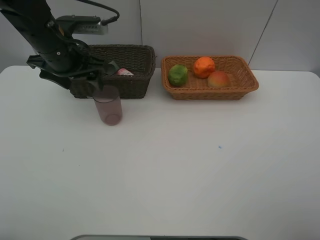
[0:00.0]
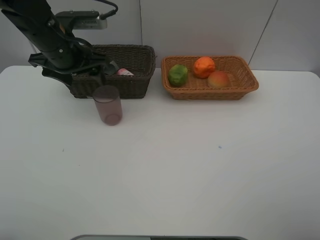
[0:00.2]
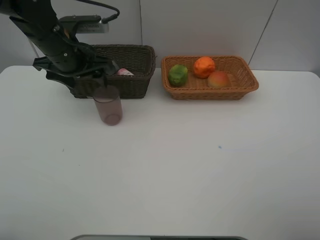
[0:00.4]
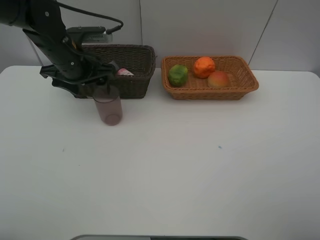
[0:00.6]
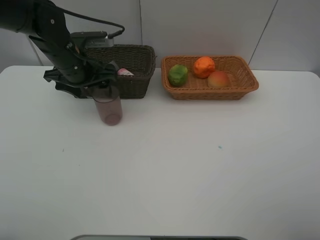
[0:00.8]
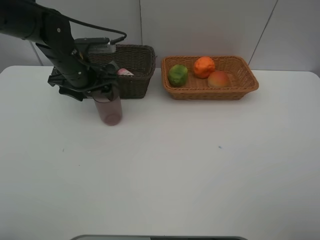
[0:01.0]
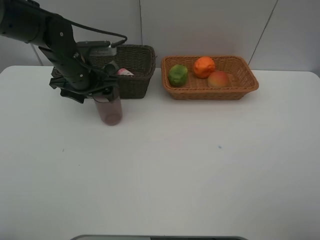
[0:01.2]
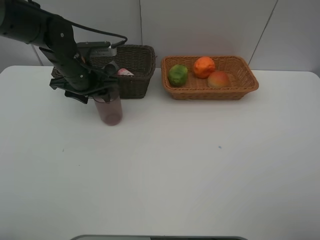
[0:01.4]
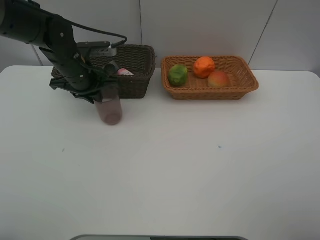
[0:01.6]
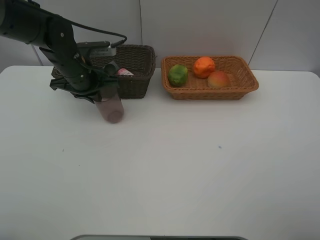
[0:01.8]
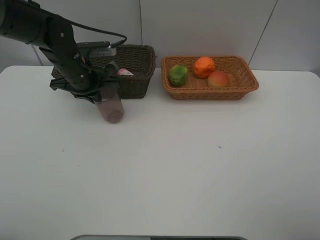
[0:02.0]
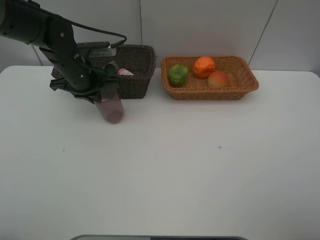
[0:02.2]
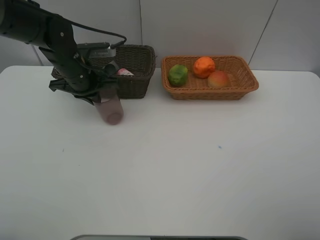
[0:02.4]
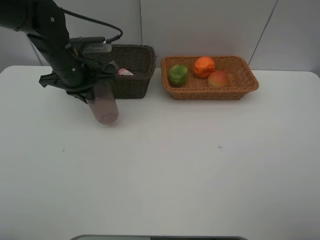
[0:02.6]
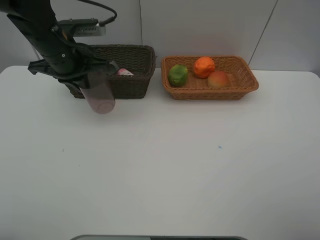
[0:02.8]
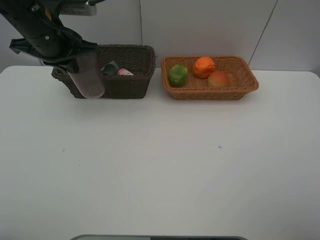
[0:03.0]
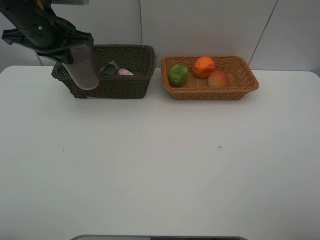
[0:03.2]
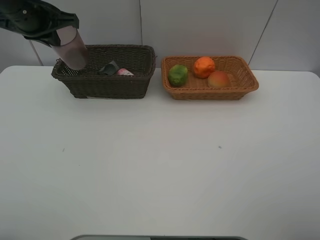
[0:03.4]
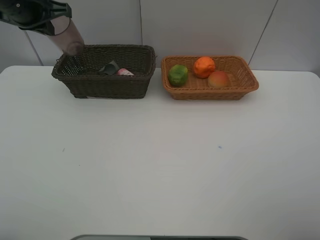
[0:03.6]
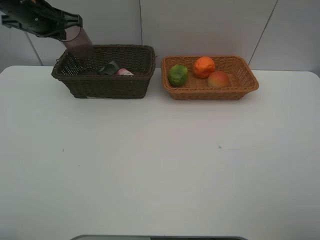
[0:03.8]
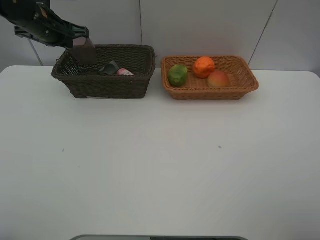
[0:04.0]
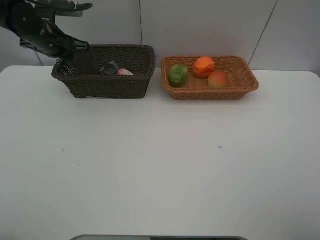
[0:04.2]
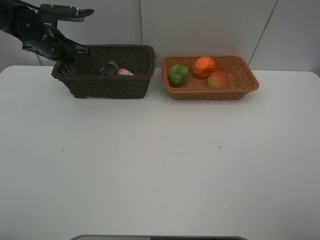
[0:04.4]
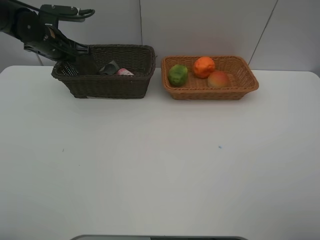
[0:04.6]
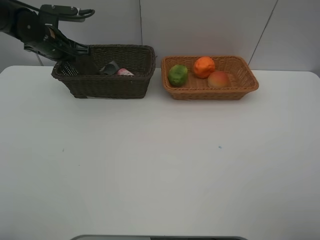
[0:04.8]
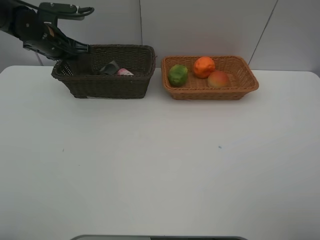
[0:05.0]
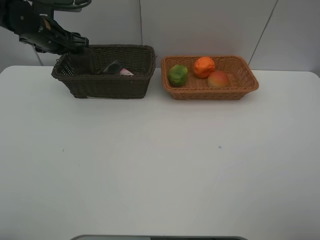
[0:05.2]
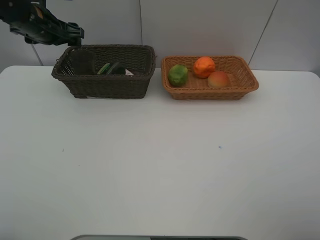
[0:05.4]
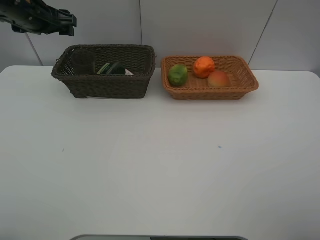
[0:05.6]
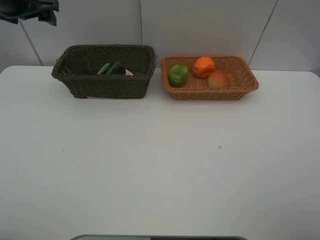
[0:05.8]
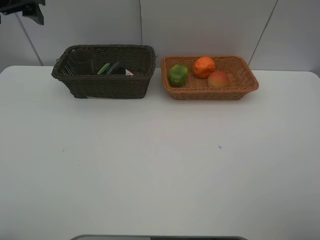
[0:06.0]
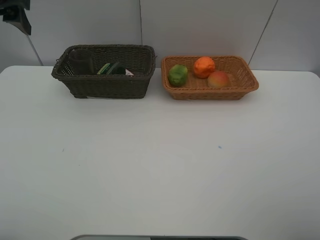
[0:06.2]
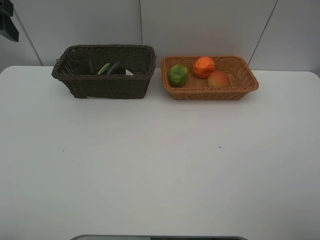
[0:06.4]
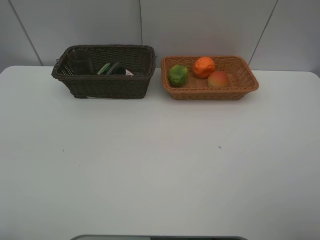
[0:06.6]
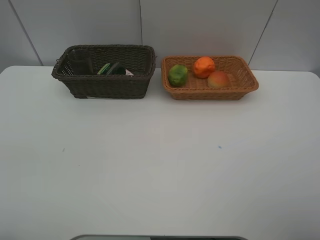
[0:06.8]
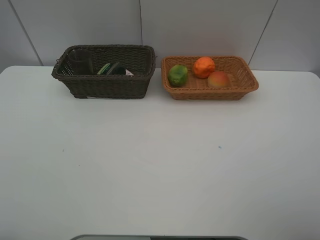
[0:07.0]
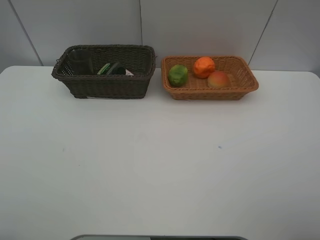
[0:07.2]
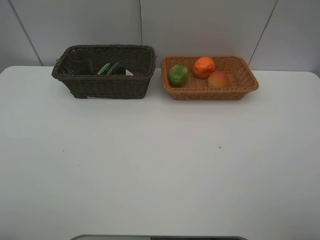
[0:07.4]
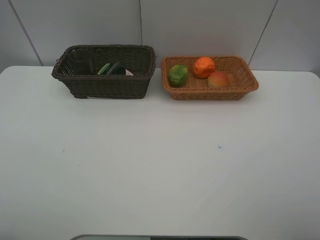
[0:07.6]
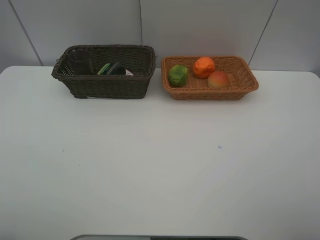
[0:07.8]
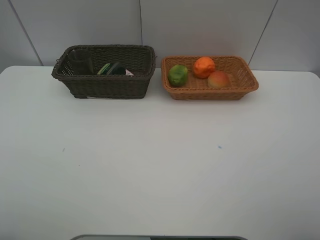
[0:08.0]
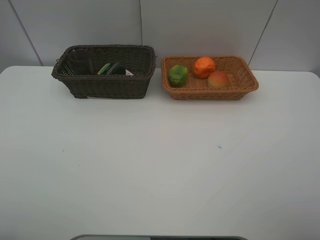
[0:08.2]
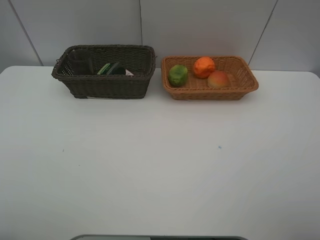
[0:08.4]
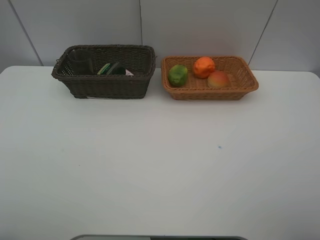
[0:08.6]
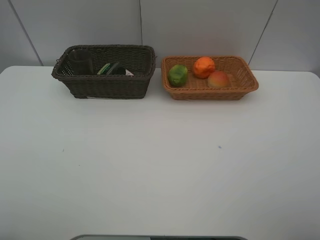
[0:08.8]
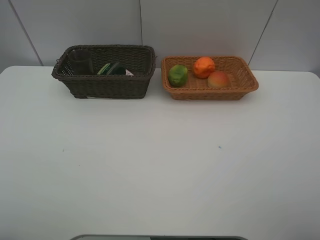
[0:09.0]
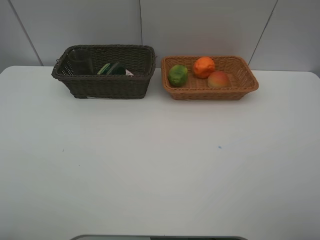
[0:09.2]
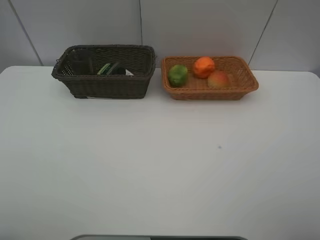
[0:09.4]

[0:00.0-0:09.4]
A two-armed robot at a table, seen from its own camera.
Task of the whole recording: place multiple objects separately in different baskets.
0:00.0 to 0:01.6: The left gripper is displaced downward by about 5 cm, and closes.
0:01.6 to 0:03.2: The left gripper is displaced upward by some 10 cm.
0:03.2 to 0:04.8: The left gripper is displaced downward and forward by approximately 10 cm.
0:04.8 to 0:06.2: The left gripper shifts about 20 cm upward and backward, and opens its fingers.
0:06.2 to 0:07.8: The left gripper moves backward, roughly 30 cm.
